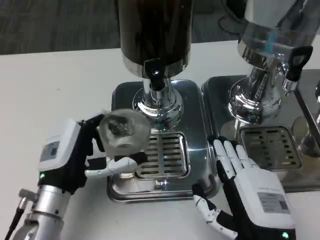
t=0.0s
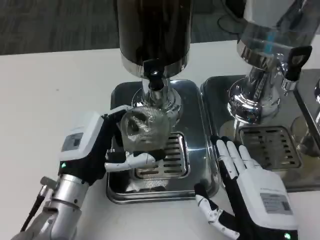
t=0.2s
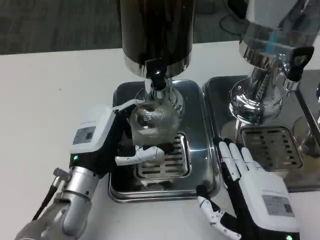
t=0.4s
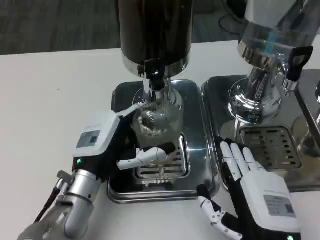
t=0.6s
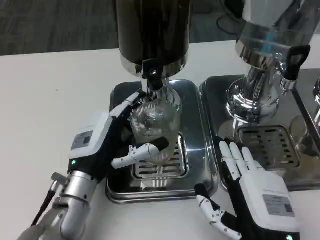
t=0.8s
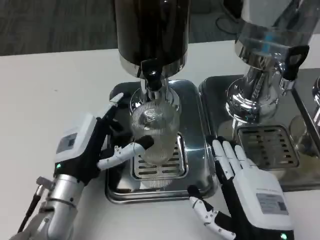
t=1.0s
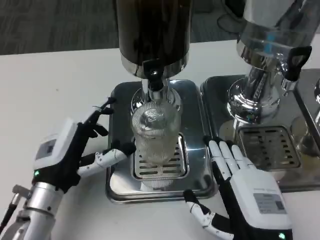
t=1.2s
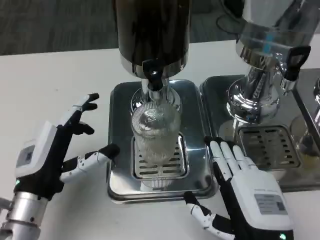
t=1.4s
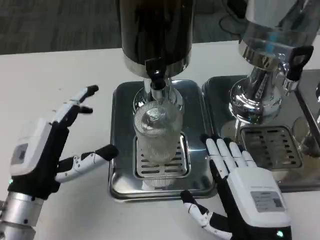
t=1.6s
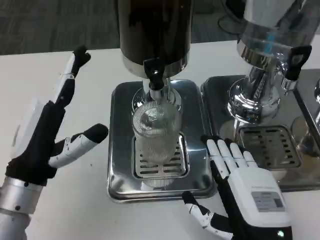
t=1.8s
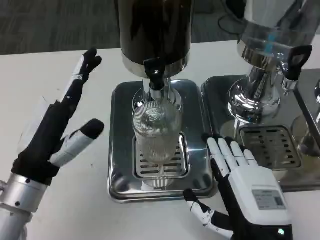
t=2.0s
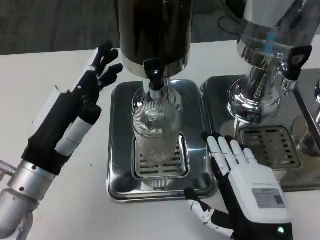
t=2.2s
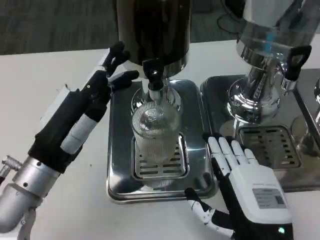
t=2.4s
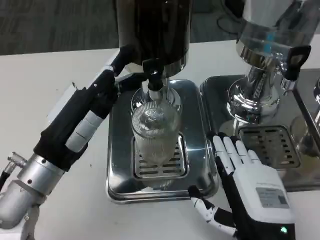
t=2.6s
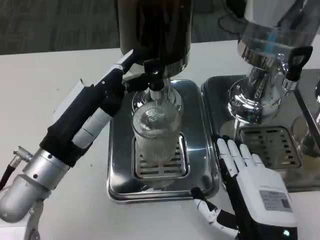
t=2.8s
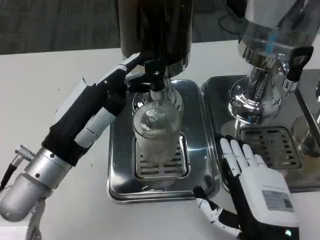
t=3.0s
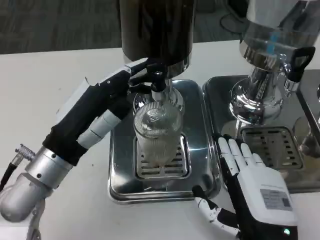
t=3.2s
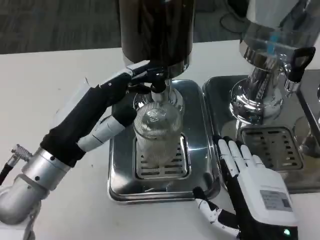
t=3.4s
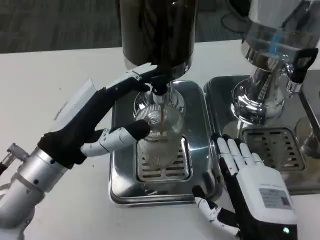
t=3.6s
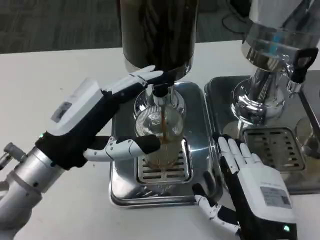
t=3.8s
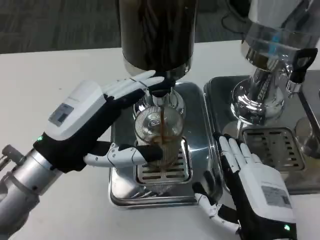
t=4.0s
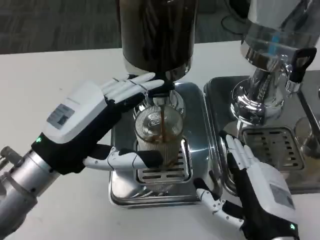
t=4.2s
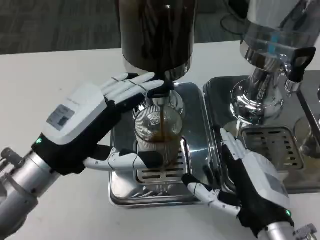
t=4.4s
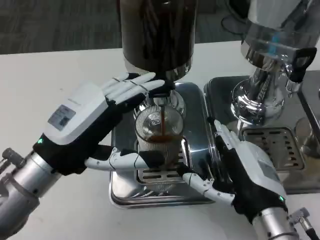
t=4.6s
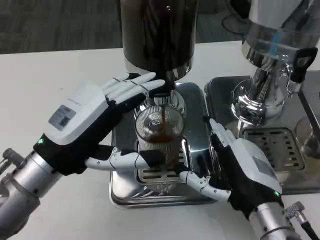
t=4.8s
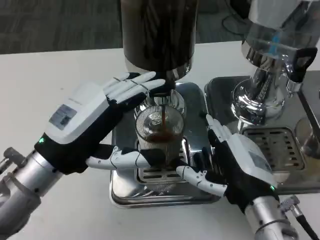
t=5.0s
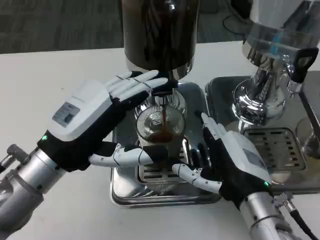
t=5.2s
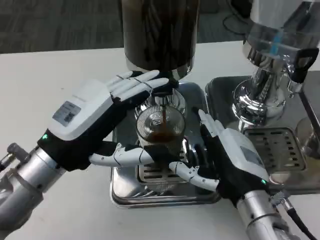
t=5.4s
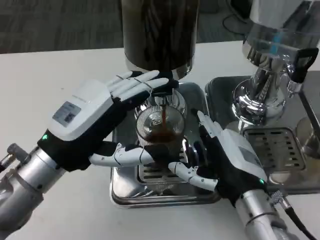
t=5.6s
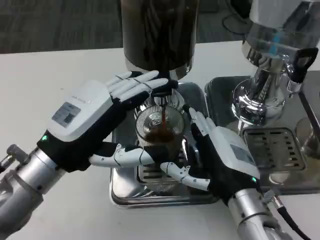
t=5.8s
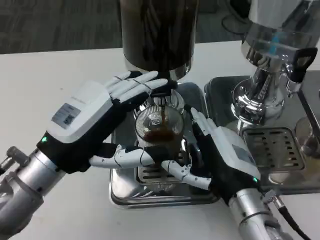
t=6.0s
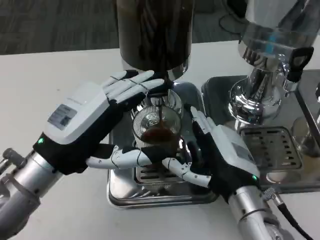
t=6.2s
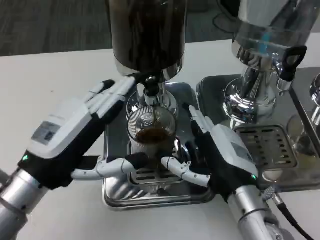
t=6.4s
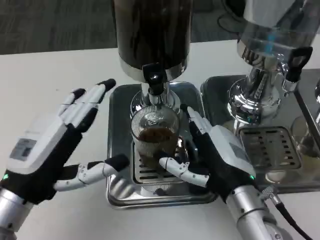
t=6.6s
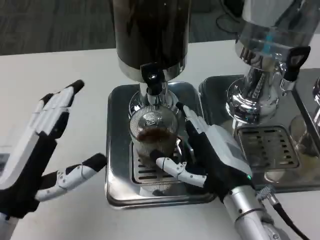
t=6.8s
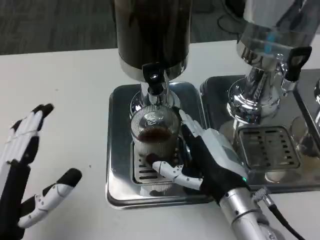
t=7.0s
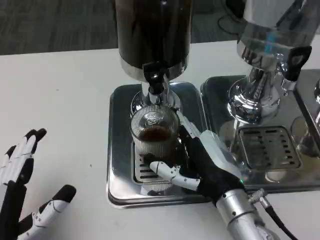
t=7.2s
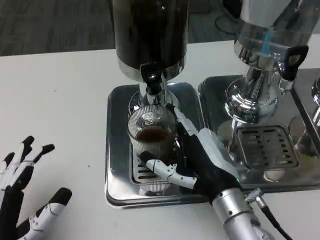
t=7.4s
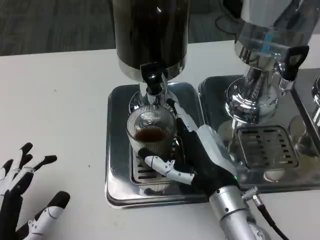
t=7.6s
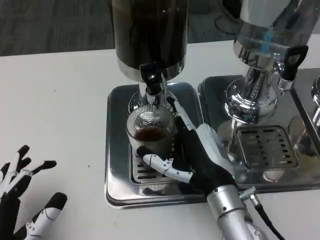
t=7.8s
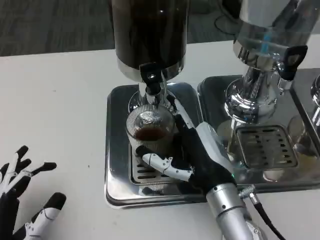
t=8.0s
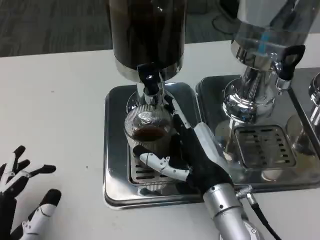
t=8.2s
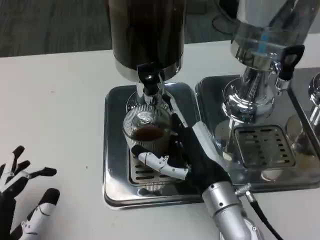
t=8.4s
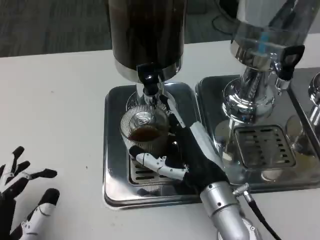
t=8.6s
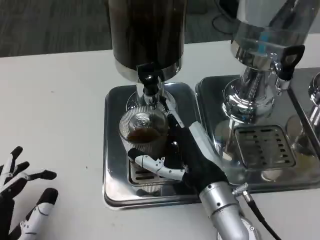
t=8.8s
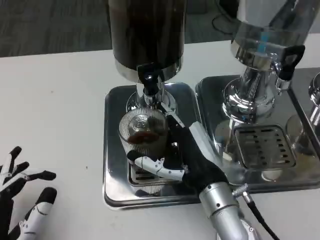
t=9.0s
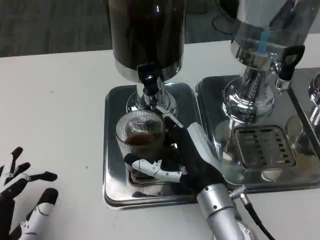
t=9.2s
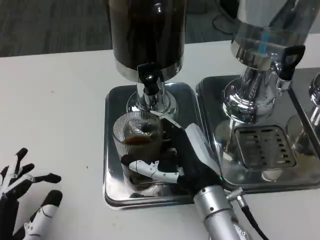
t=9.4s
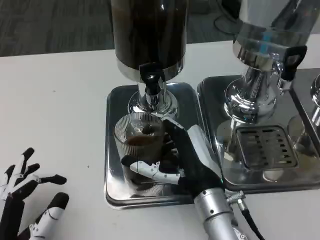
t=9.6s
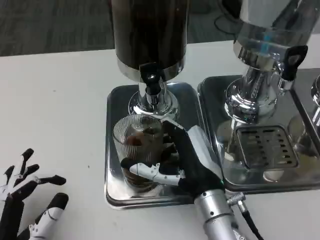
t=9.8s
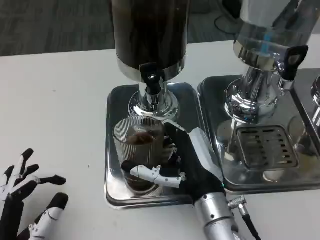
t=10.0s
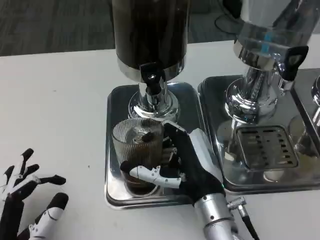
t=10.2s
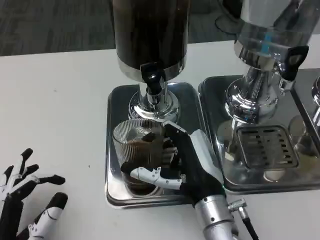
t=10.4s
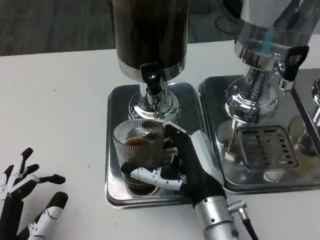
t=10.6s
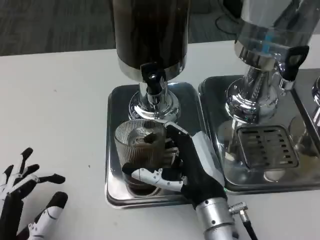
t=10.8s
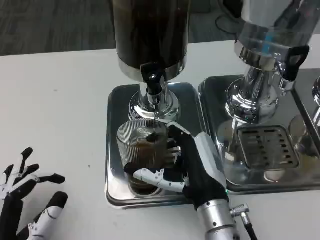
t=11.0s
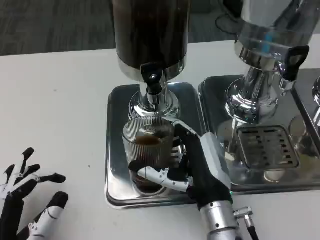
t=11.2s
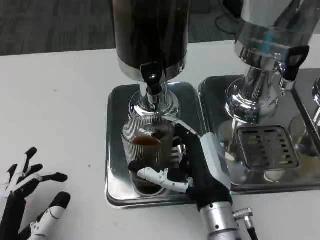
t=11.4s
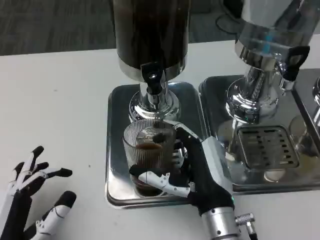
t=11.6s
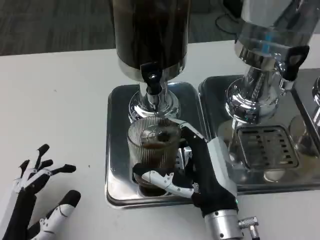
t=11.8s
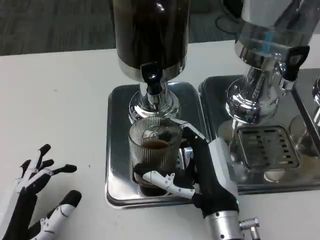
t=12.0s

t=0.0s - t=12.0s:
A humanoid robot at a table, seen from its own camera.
Task of the whole recording: Grasp the cup under the faucet to collect the drink, then remove the cup.
t=1.6s - t=3.0s: The left hand ends up some 5 cm from where it was.
t=4.4s - t=6.0s: The right hand moves about 5 cm.
t=6.0s - t=7.6s: The left hand moves backward and downward, roughly 15 cm.
t=10.4s - t=12.0s: The hands make only small movements.

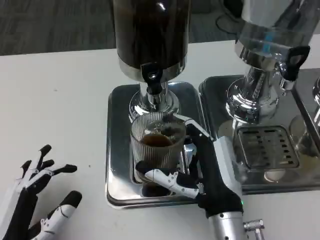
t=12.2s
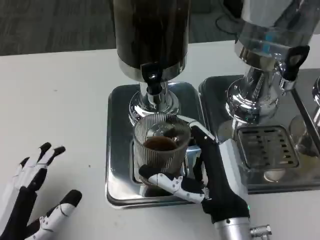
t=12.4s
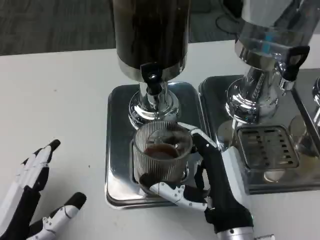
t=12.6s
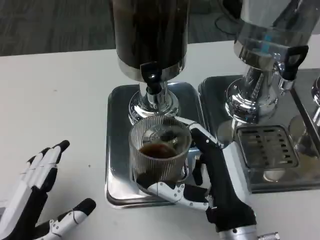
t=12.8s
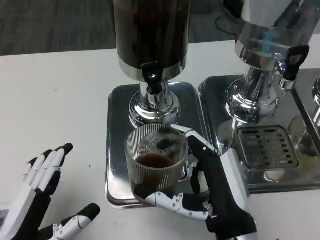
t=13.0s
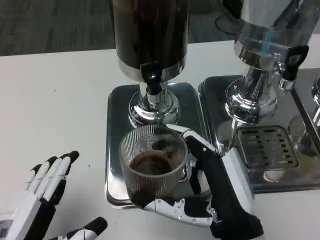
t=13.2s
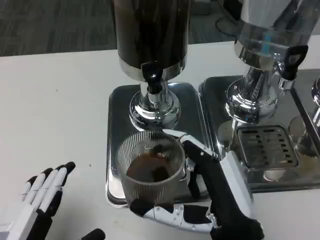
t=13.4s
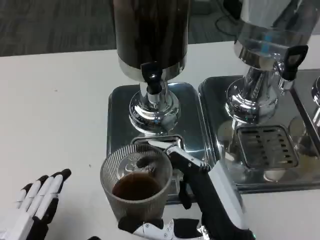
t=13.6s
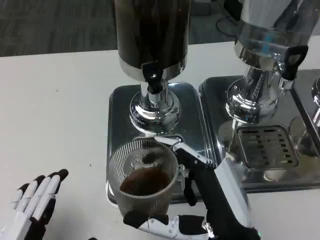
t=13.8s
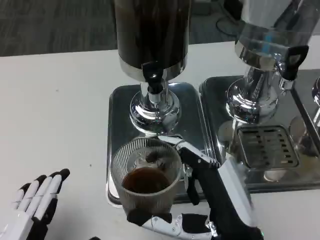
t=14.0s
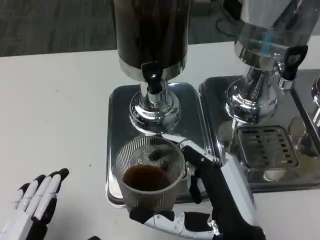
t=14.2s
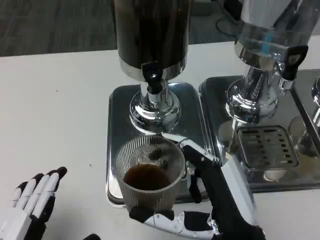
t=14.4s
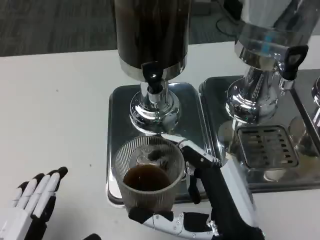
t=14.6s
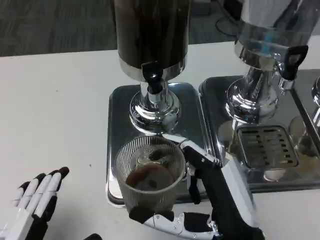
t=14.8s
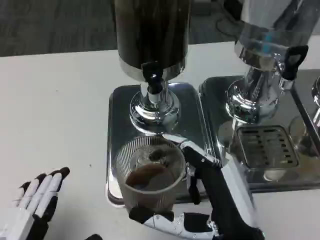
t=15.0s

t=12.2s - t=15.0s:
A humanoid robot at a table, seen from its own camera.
Task of the whole recording: Grasp the cup under the faucet to collect the drink, then remove the cup.
t=12.2s - t=13.6s: The right hand heads backward, covering roughly 5 cm, while the left hand ends up approximately 5 cm from where it was.
t=13.6s - t=15.0s: Neither hand changes place.

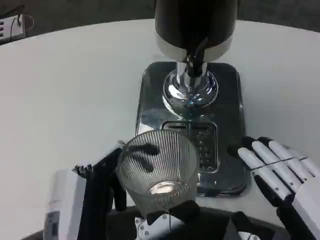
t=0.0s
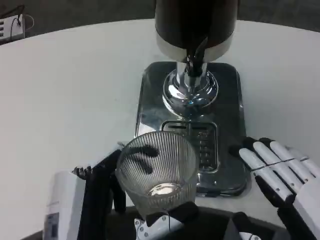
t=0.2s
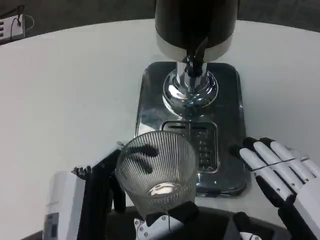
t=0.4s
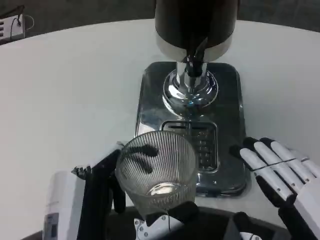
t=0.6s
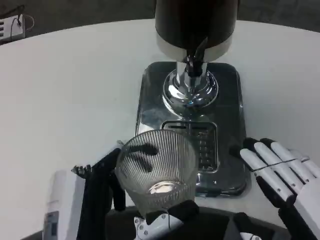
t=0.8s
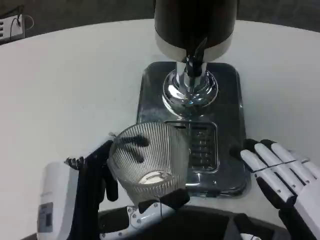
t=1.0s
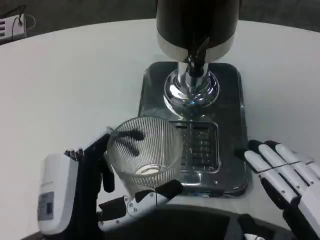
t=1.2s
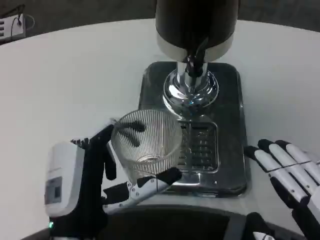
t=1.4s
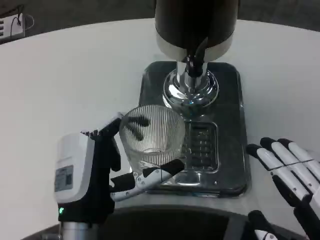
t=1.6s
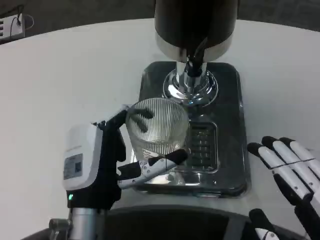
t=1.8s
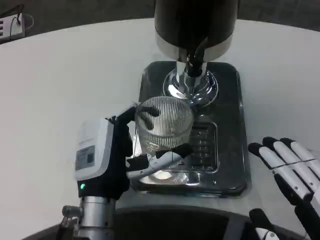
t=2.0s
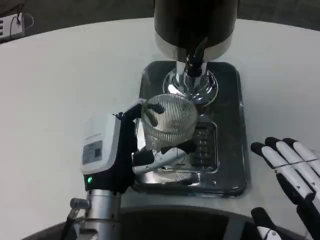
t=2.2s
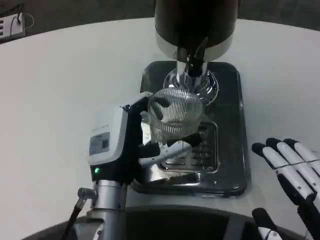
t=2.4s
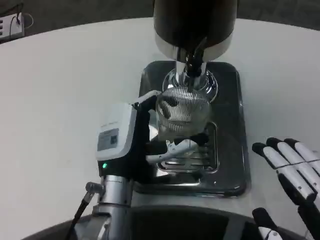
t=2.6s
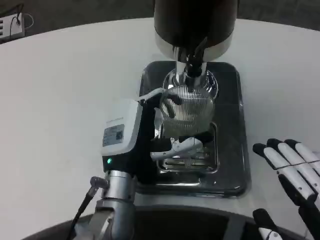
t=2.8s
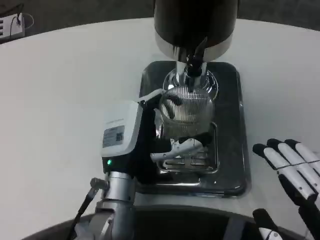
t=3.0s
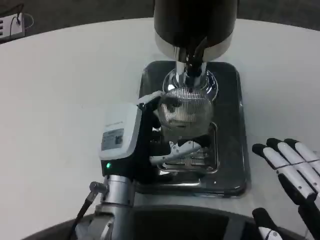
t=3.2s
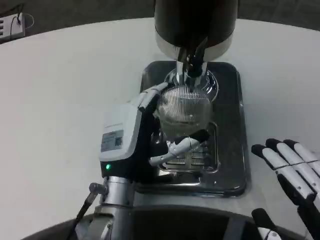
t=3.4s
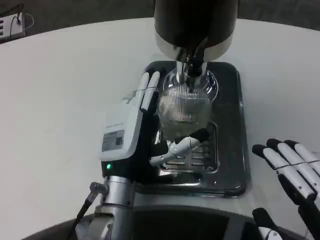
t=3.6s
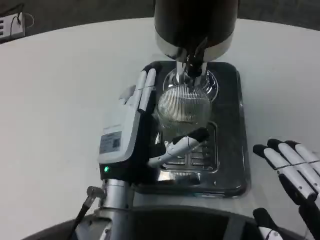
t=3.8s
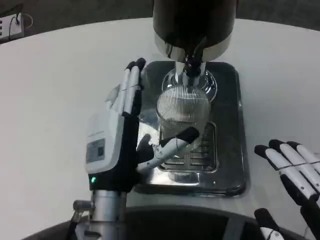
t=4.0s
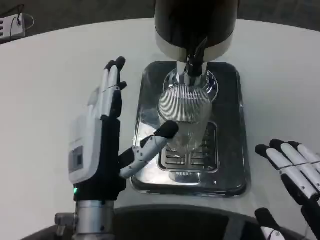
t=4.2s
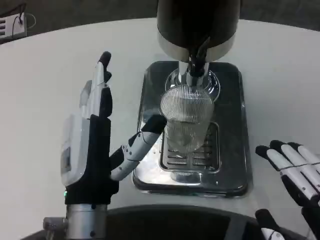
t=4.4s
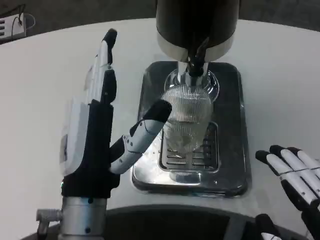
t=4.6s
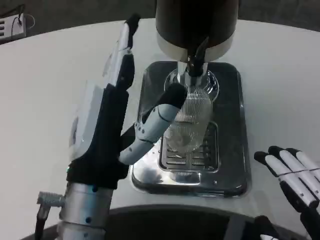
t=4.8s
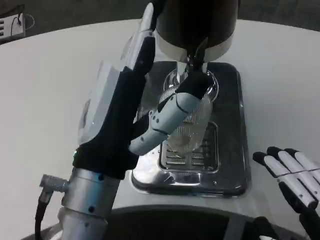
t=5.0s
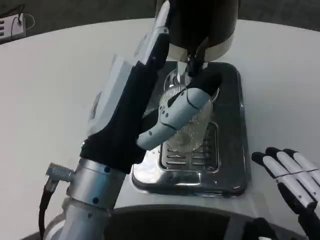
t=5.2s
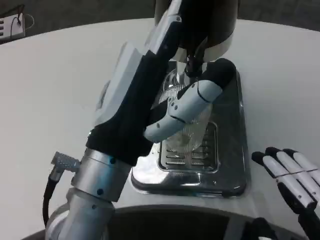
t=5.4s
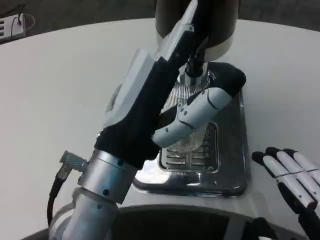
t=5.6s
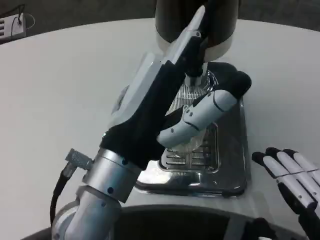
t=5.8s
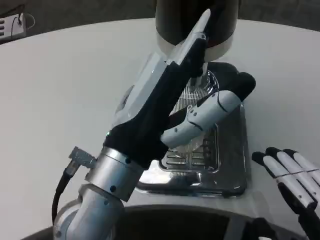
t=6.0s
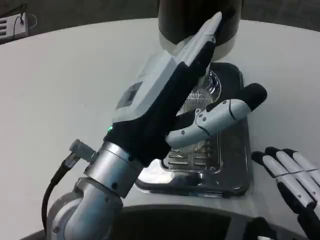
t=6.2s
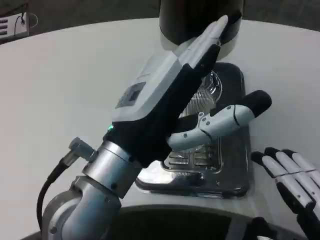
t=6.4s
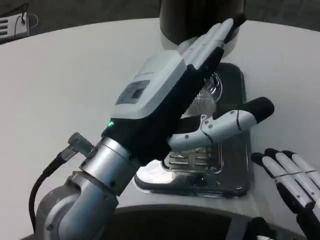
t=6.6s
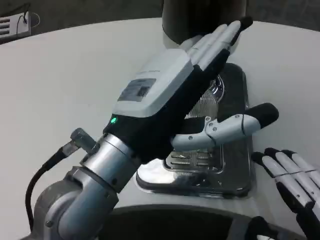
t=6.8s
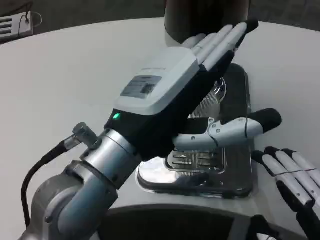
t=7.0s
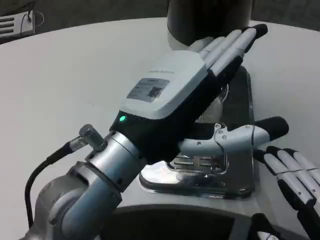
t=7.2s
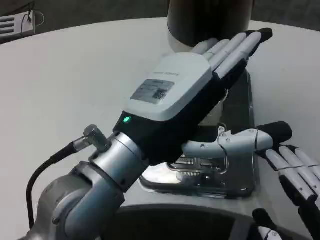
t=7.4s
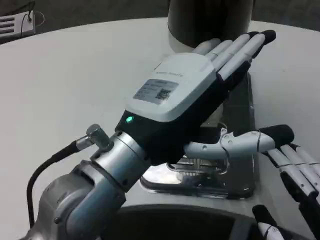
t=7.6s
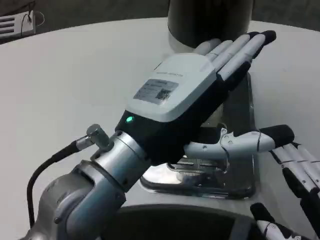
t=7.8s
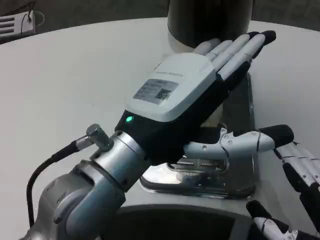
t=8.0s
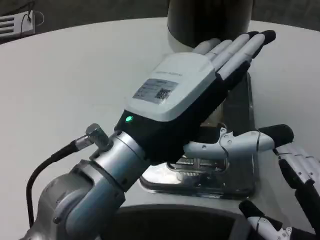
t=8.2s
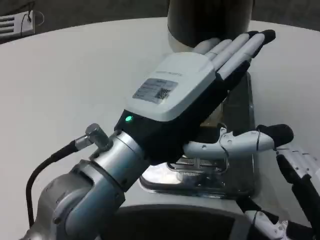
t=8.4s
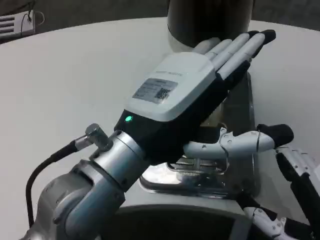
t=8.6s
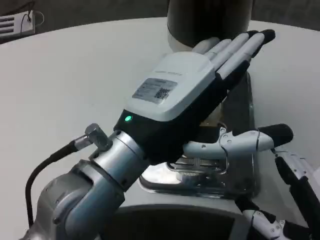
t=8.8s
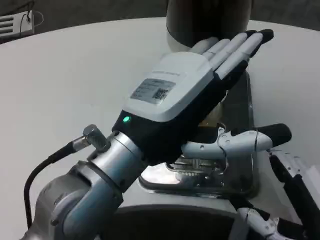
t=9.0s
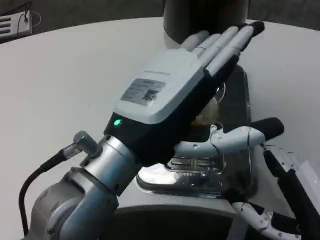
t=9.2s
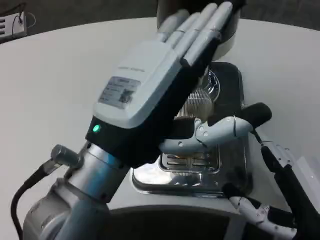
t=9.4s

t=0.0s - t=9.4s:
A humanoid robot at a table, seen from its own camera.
Task of the whole recording: Grasp the cup under the faucet to collect the drink, then remove the cup.
t=0.0s - t=1.6s: The left hand goes approximately 10 cm forward.
t=1.6s - t=3.2s: The left hand moves forward, some 10 cm.
t=3.2s - t=4.8s: The left hand goes approximately 15 cm backward and upward.
t=7.8s - t=9.4s: The right hand is displaced forward by roughly 5 cm.
